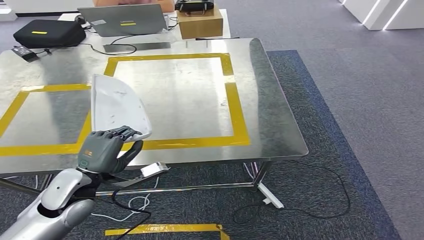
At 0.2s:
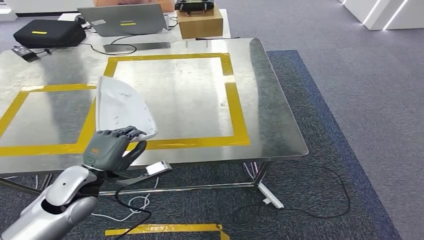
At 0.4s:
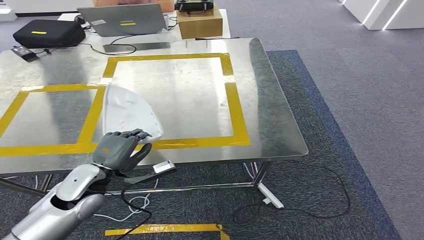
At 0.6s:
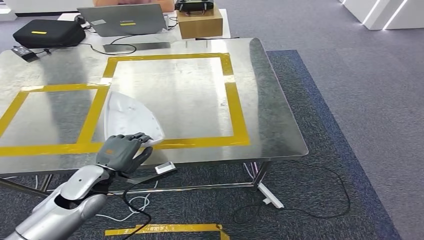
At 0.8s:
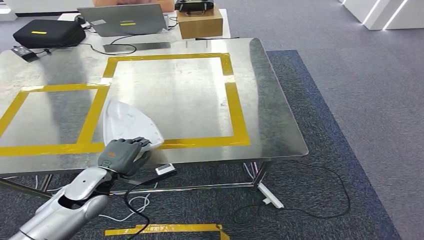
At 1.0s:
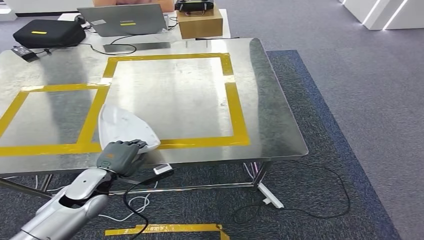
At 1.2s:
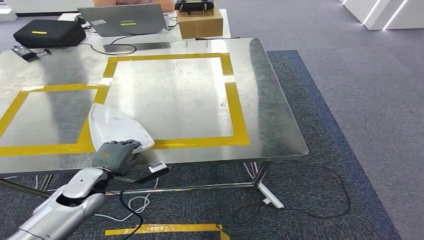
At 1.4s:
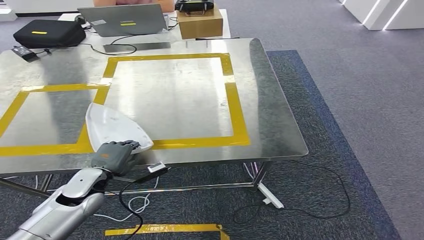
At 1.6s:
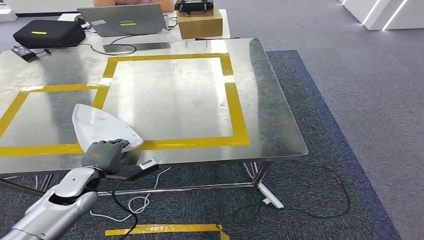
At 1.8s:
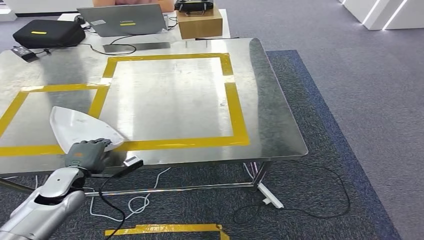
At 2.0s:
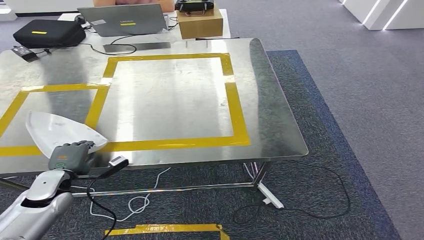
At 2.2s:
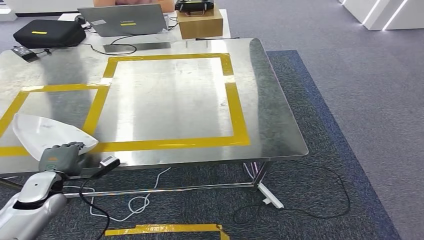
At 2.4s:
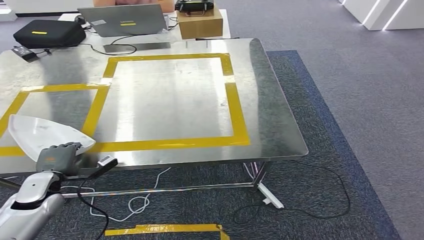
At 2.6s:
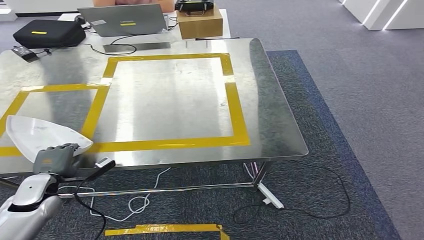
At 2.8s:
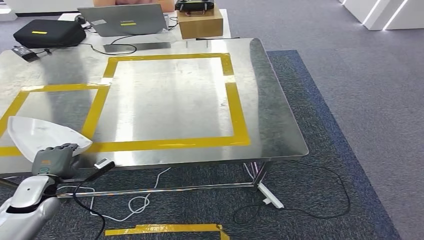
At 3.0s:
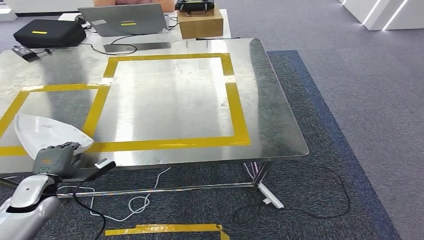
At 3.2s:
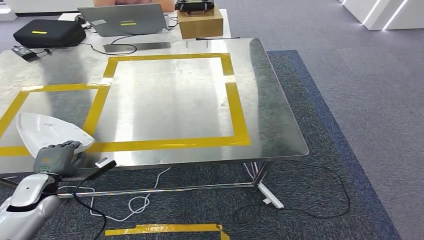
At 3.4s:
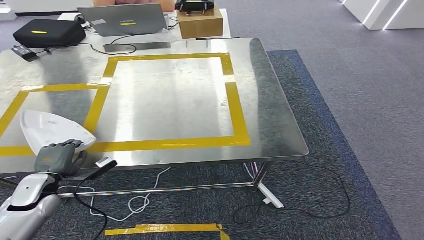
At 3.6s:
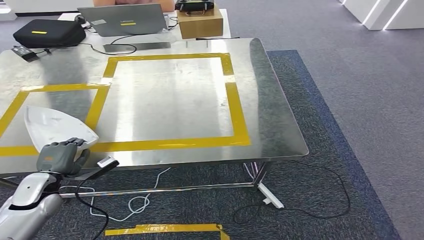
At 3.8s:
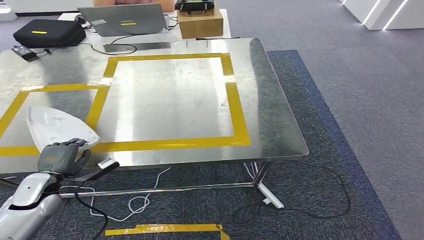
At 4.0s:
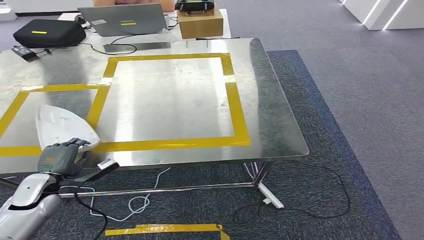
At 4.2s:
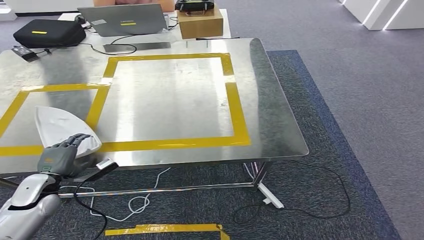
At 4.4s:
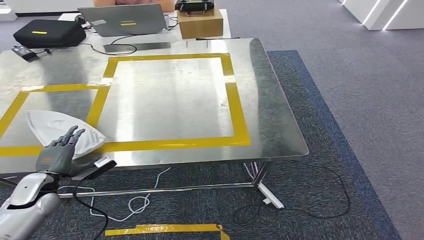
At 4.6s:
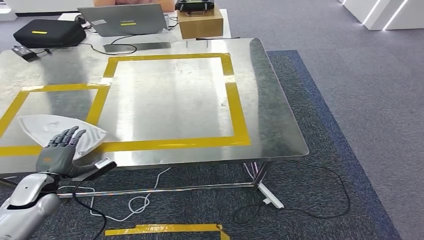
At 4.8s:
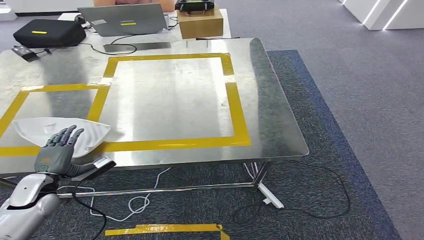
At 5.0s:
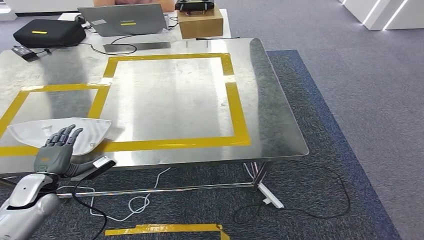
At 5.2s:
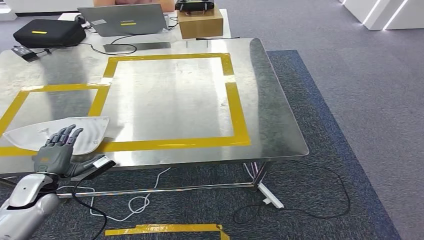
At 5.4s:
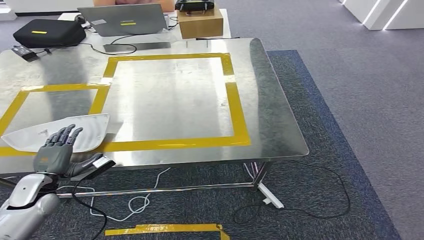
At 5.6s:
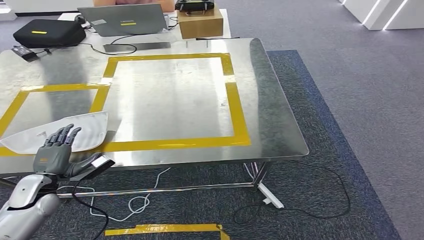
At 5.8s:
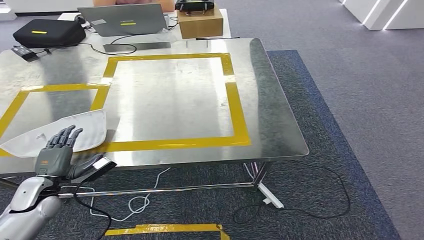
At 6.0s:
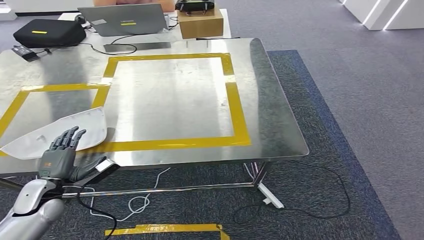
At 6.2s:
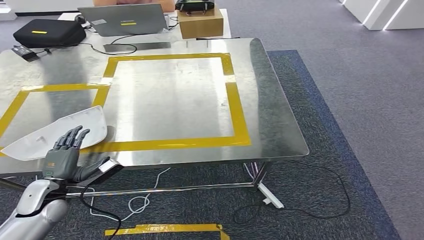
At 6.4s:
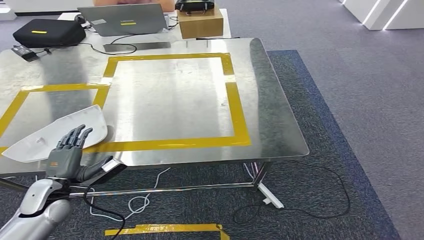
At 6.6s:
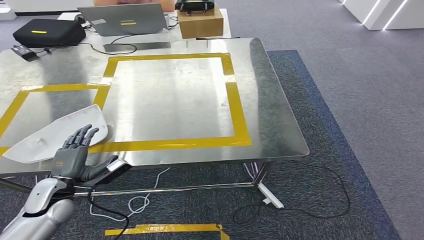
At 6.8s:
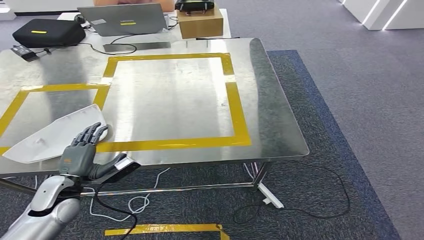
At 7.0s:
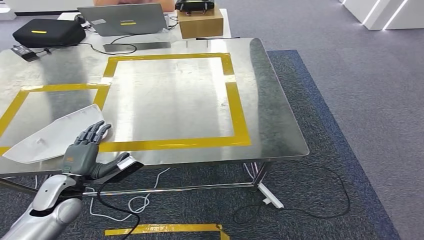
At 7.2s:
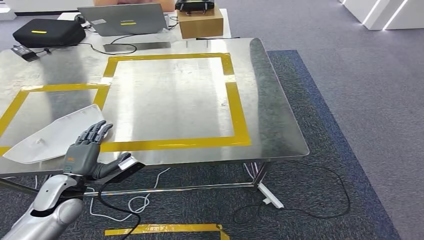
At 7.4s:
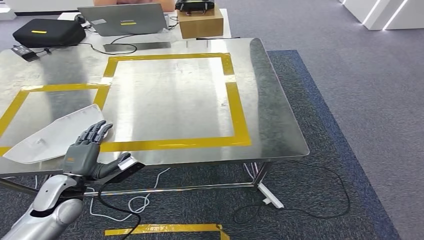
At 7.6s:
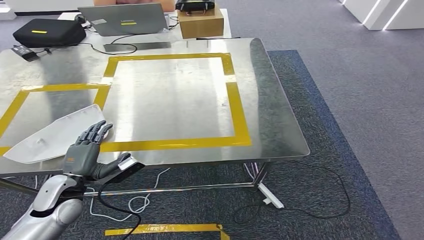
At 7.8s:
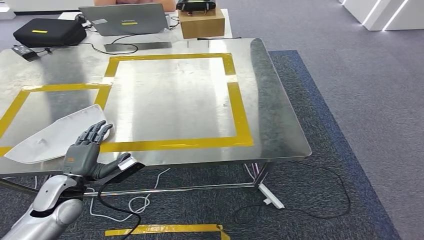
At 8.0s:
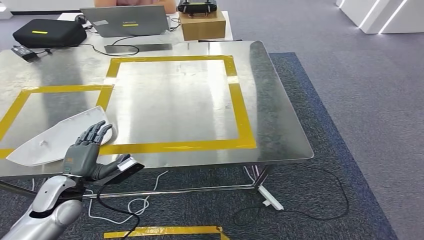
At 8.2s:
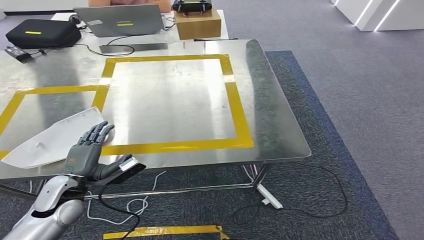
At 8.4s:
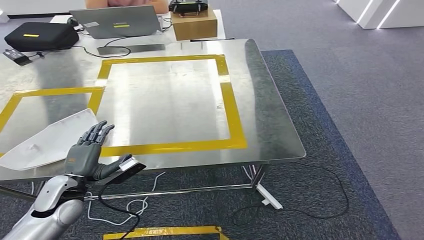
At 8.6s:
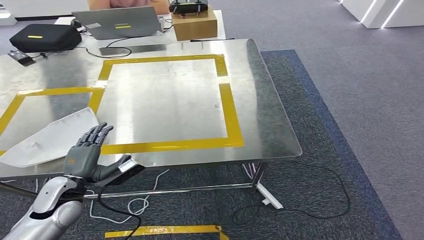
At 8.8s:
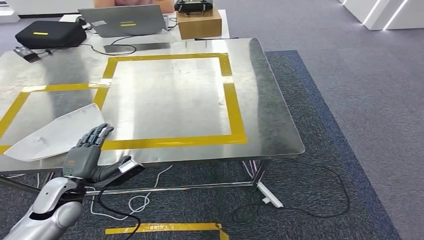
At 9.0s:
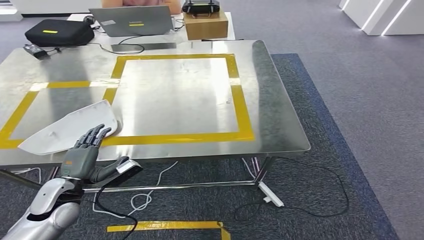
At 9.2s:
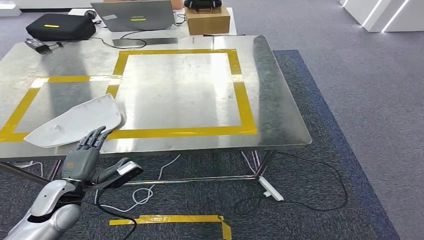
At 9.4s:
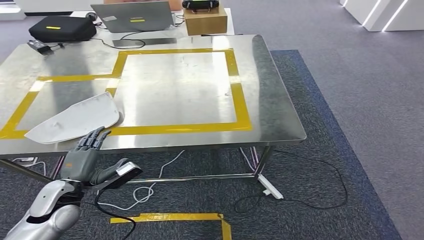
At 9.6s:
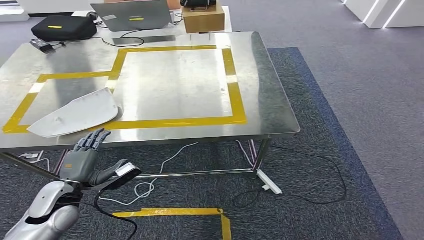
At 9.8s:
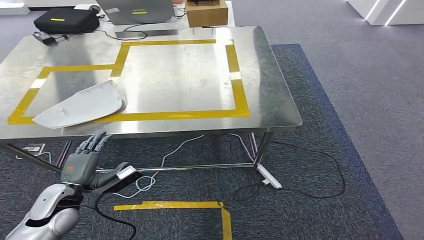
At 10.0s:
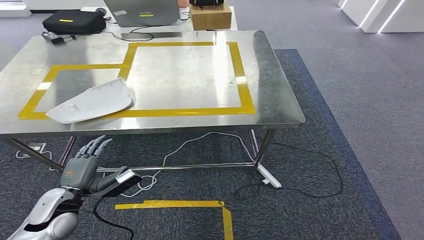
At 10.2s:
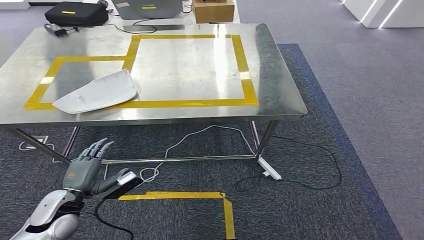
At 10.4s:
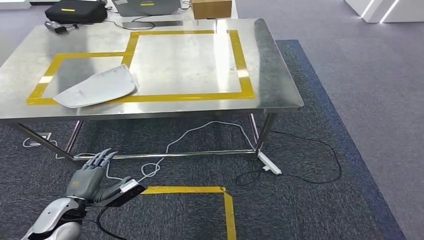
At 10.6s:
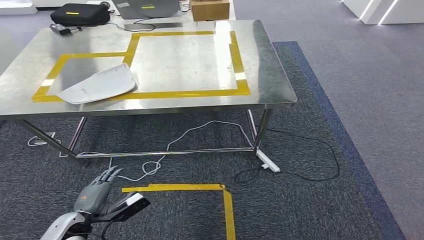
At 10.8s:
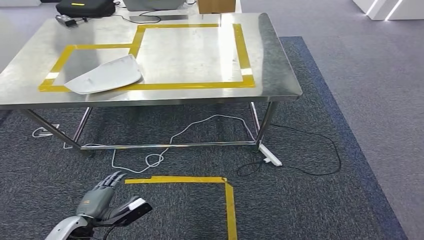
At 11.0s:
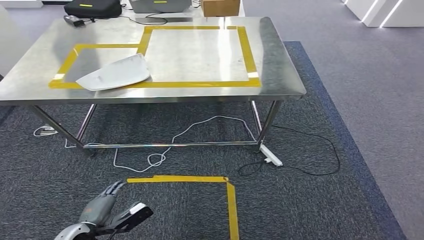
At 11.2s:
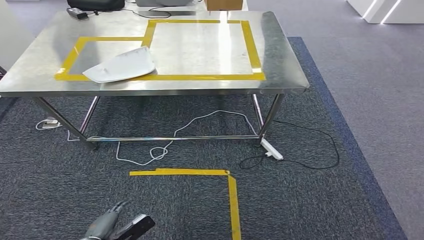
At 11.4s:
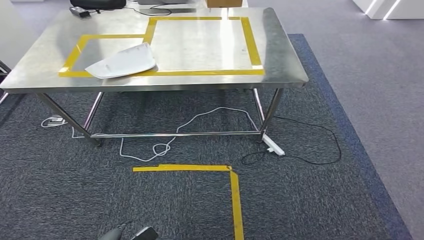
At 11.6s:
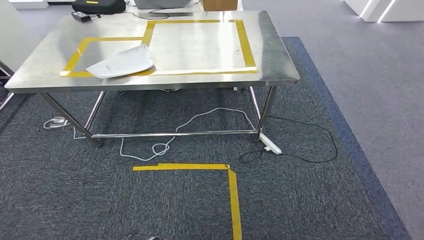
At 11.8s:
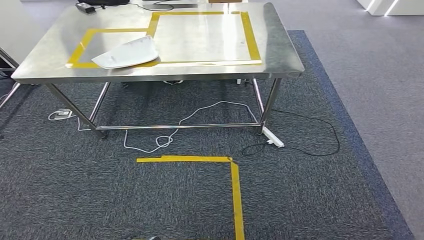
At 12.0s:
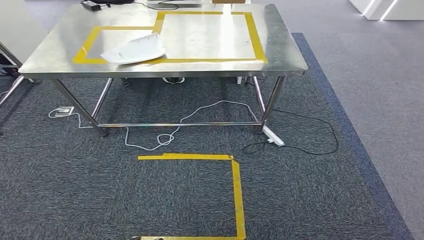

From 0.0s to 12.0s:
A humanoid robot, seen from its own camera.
Step, from 0.0s to 9.8s: Insert the small component into the corresponding slot on the workbench.
From 0.0s to 1.6s: The left hand goes roughly 10 cm downward.
From 1.6s to 3.0s: The left hand heads to the left, covering some 10 cm.
From 3.0s to 6.0s: The hands make only small movements.
From 6.0s to 7.6s: The left hand shifts approximately 5 cm to the right.
From 7.6s to 9.0s: Both hands stay put.

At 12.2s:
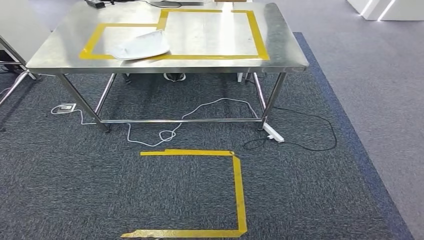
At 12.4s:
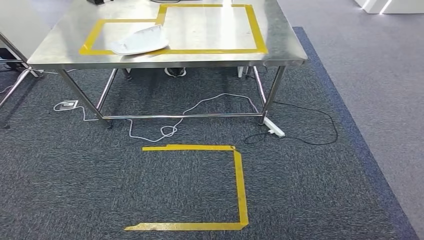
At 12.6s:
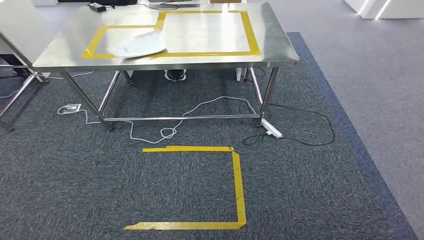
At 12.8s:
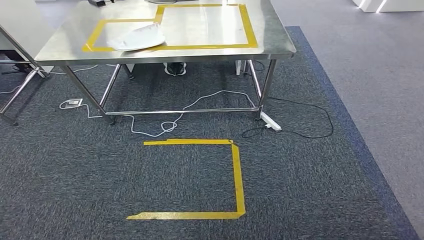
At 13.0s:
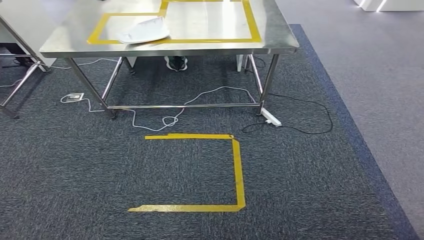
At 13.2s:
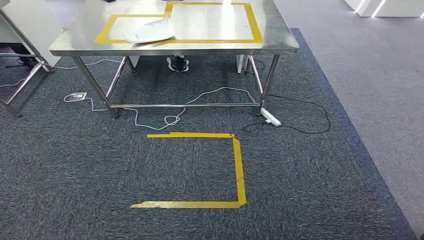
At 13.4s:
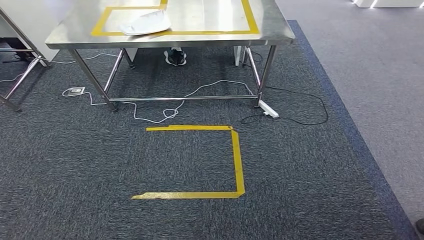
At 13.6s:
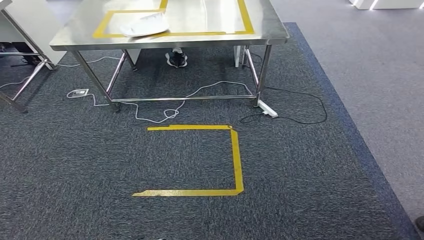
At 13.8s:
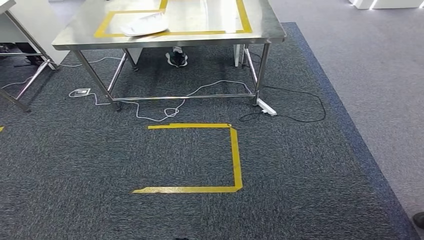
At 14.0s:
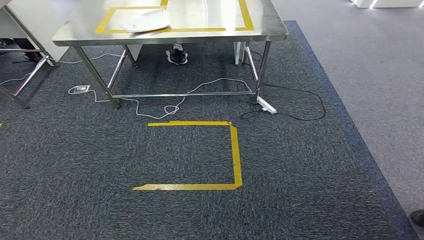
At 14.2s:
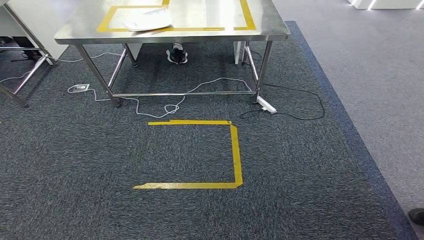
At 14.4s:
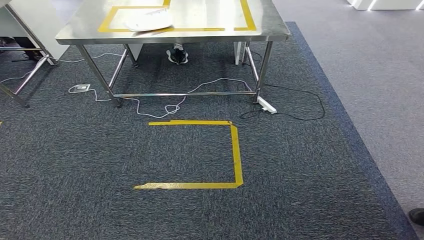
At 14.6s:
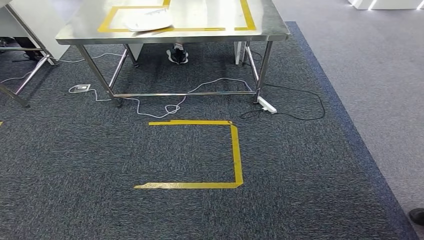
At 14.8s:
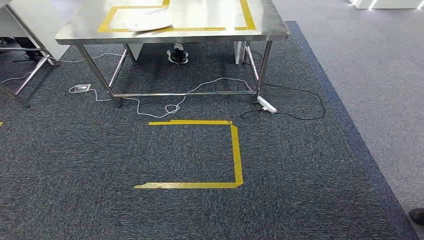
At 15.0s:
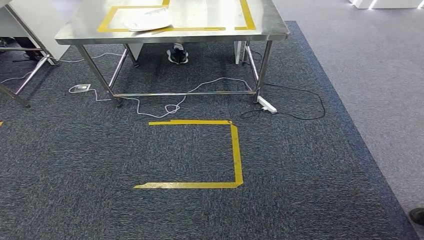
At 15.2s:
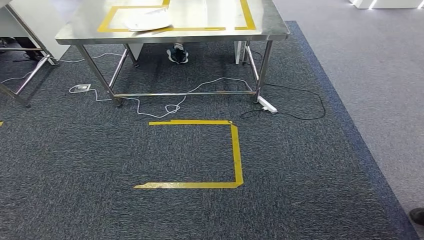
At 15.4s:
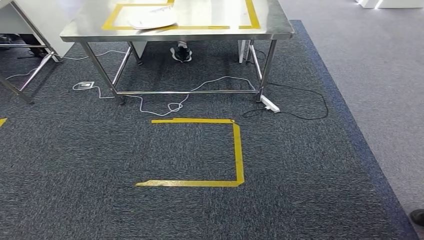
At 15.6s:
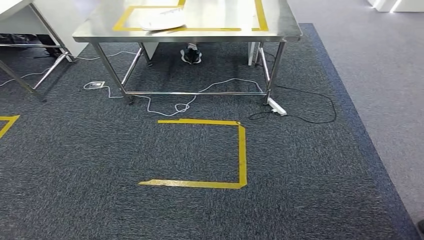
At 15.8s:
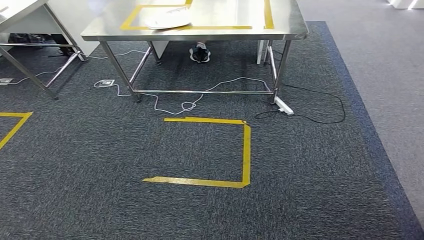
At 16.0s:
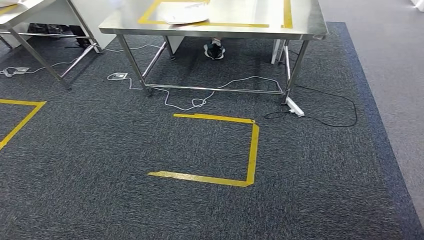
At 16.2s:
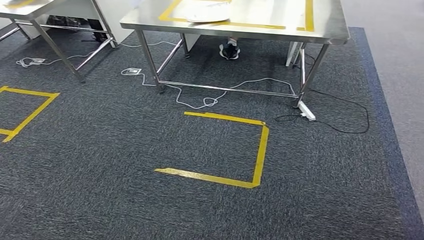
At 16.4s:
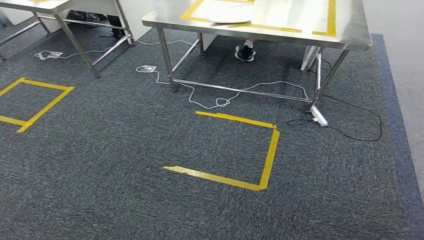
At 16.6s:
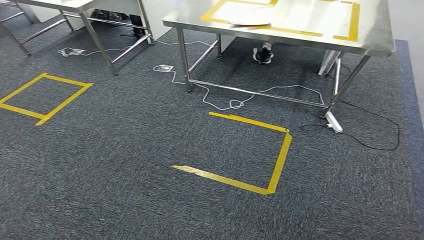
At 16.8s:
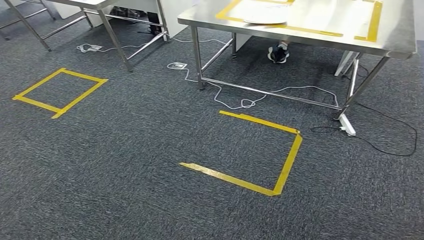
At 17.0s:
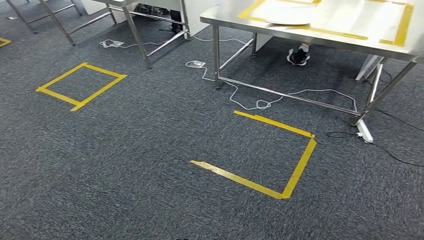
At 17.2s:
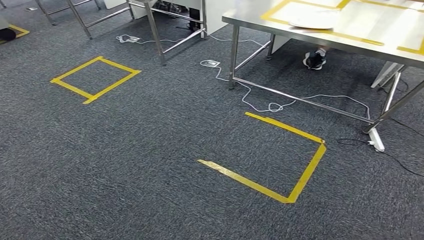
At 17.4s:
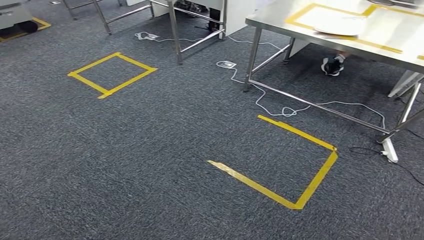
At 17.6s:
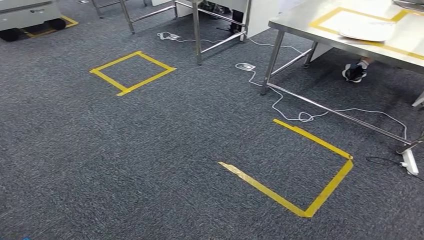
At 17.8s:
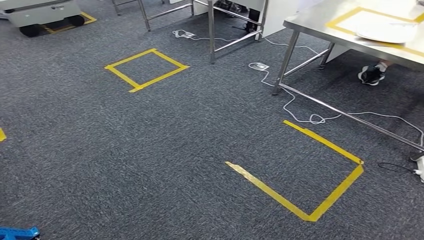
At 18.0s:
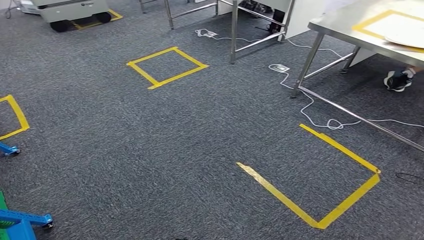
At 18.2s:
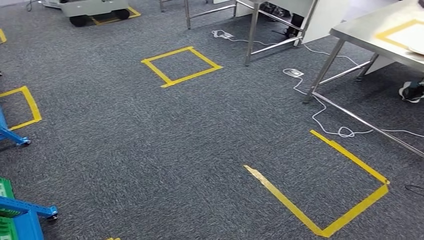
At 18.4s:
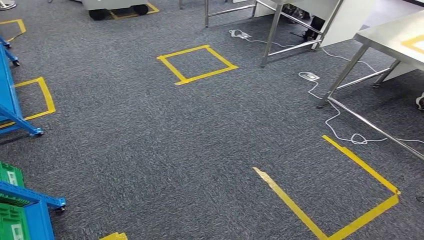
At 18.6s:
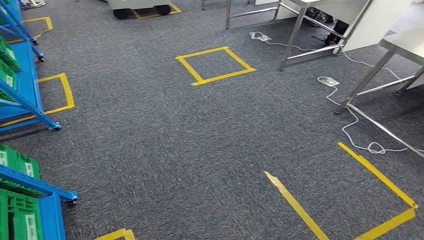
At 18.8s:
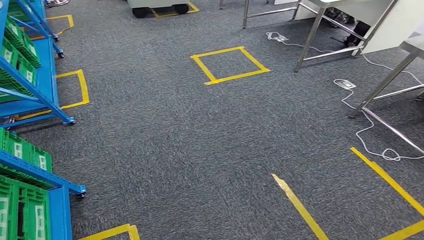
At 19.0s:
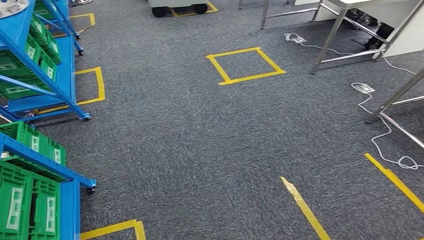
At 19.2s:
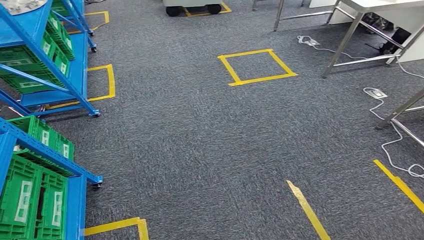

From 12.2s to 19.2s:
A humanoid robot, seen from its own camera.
From 13.6s to 15.0s: Both hands stay put.
